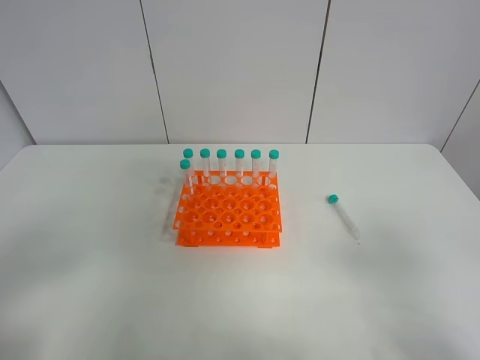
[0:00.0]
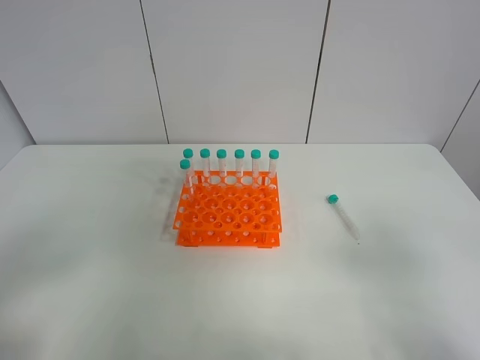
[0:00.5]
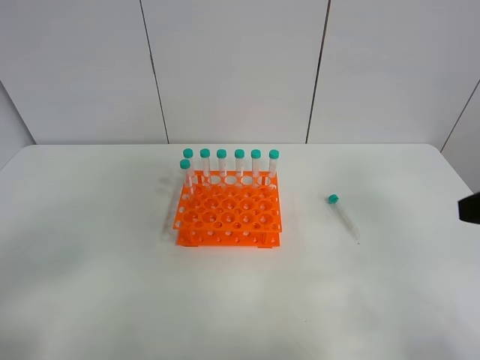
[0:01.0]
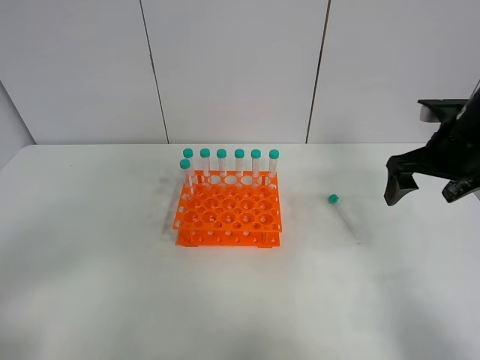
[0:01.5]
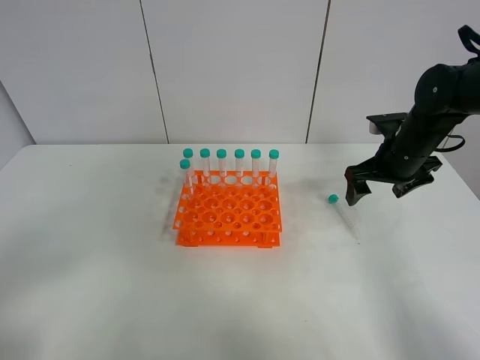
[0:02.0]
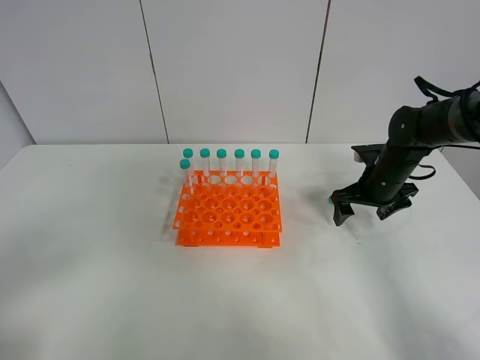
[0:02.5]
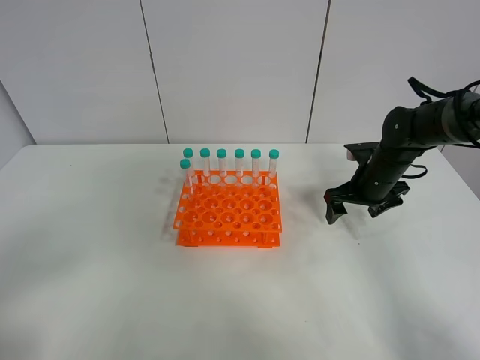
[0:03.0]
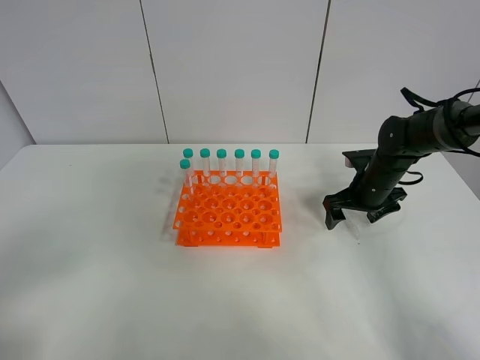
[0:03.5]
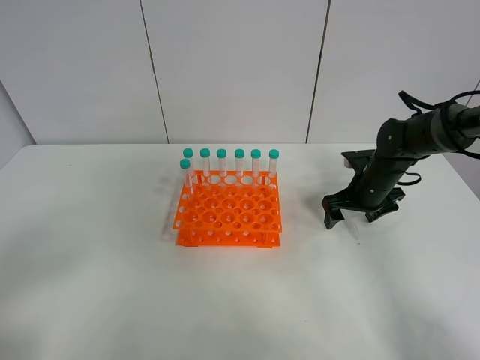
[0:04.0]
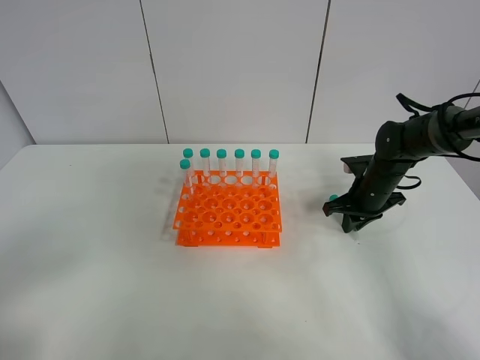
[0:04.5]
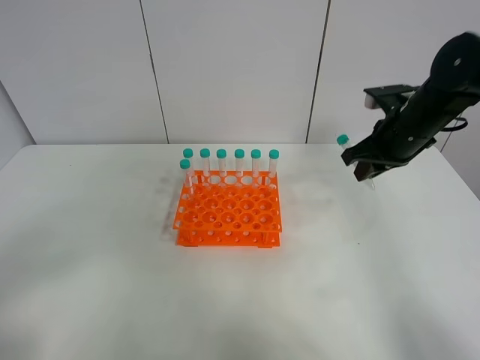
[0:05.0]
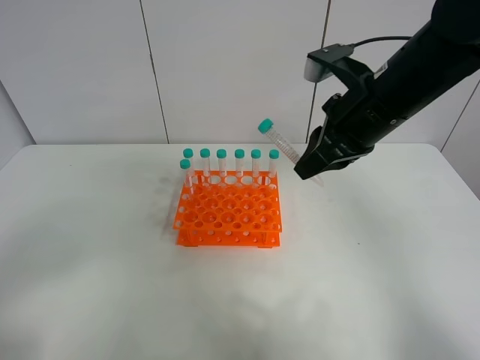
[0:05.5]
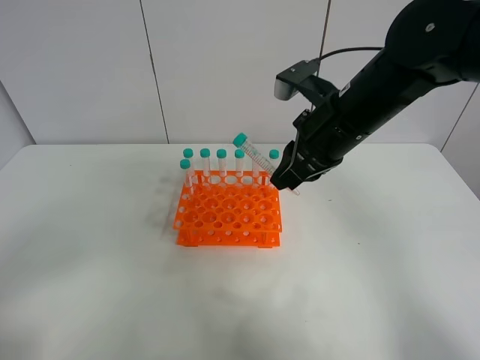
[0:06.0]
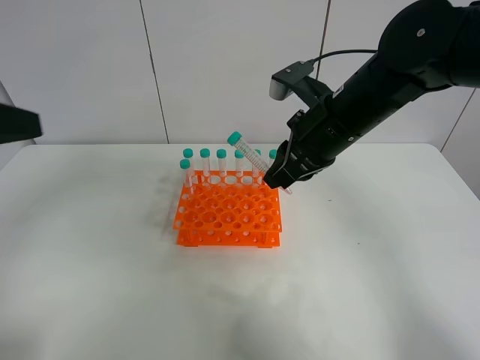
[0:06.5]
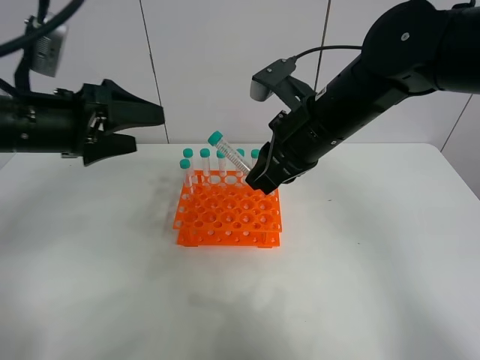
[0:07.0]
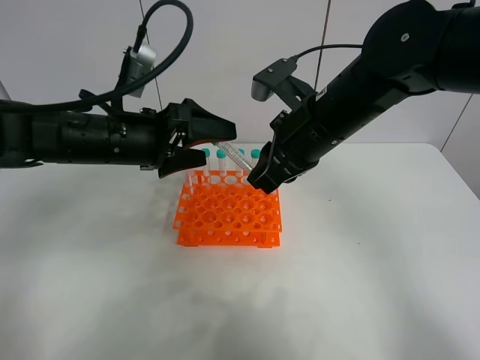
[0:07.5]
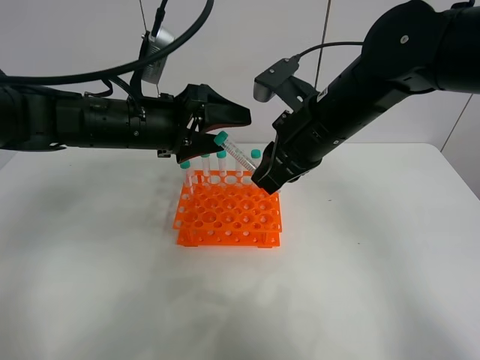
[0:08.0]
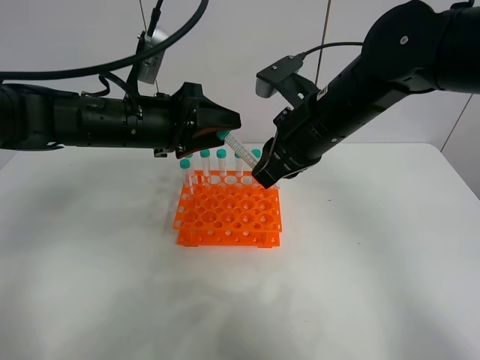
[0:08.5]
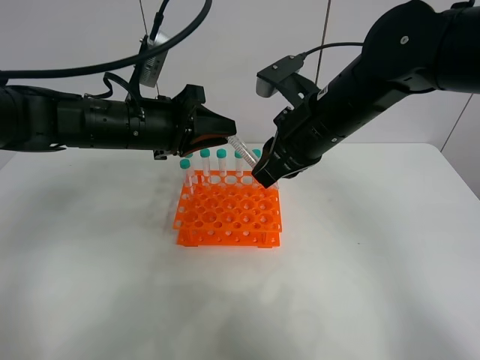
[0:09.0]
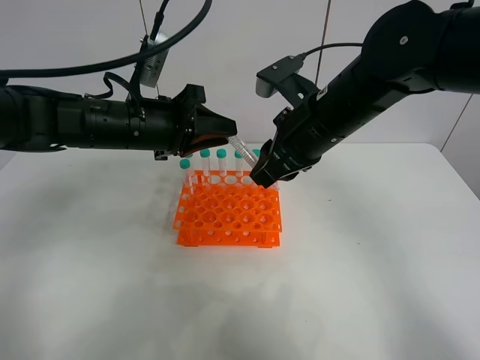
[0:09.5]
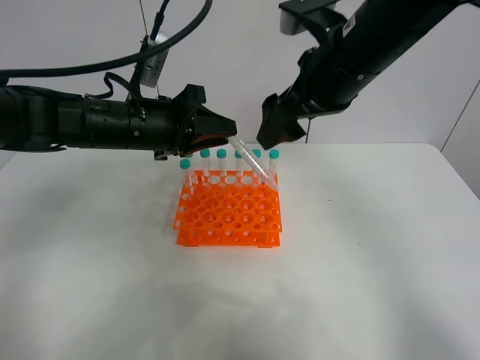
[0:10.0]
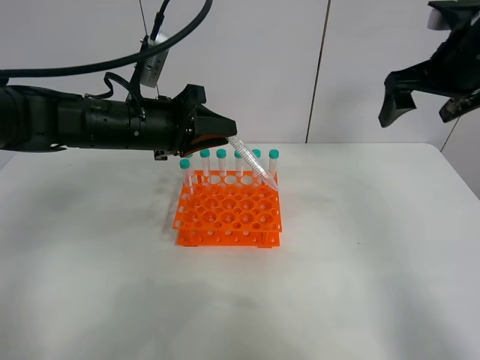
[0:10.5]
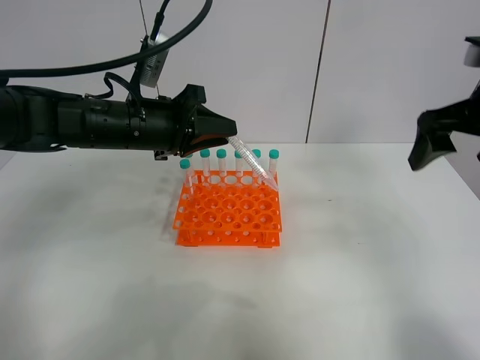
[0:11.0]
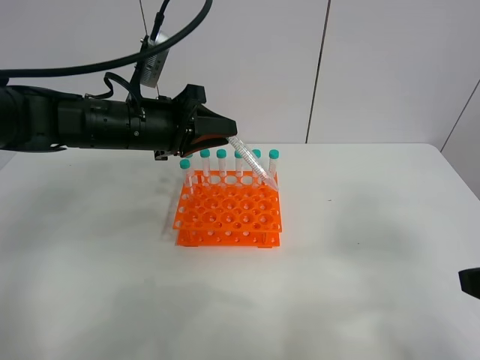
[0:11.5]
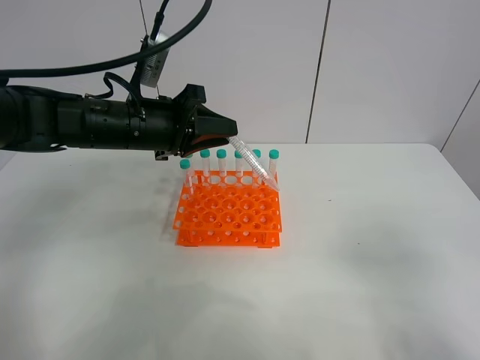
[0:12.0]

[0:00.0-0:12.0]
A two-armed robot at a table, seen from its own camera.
Task of the whole recording: Put the test tube on the table back onto the test tube rack.
Step, 0:00.0 to 0:05.0: Pick up the test tube with the right gripper.
Step, 0:05.5 to 0:10.0: Move the test tube from the right gripper to the left gripper.
0:00.0 to 0:02.0: The right gripper travels forward by about 35 cm.
0:02.0 to 0:04.0: The right gripper is displaced downward by approximately 10 cm.
0:04.0 to 0:06.0: The right gripper goes about 25 cm upward, to the left and backward, and closes up.
0:06.0 to 0:08.0: The left gripper goes about 35 cm forward and to the right.
0:08.0 to 0:10.0: The left gripper closes up. The right gripper shifts some 5 cm upward, and opens.
0:10.0 to 0:12.0: The right gripper moves backward and to the right, about 35 cm.

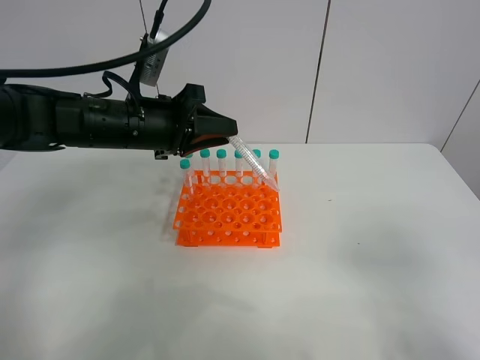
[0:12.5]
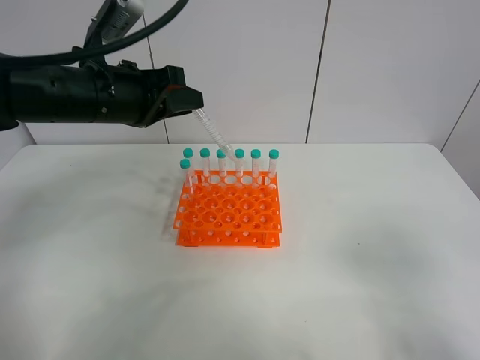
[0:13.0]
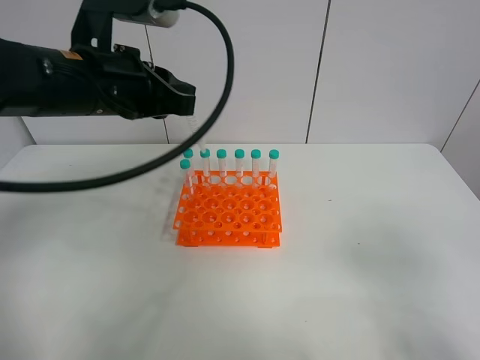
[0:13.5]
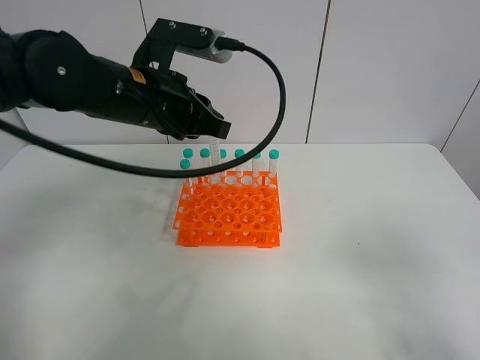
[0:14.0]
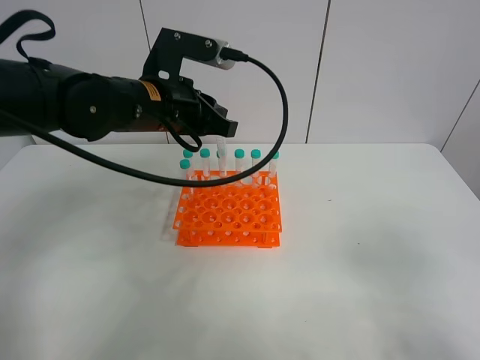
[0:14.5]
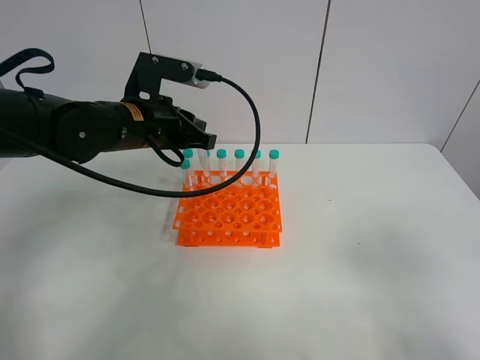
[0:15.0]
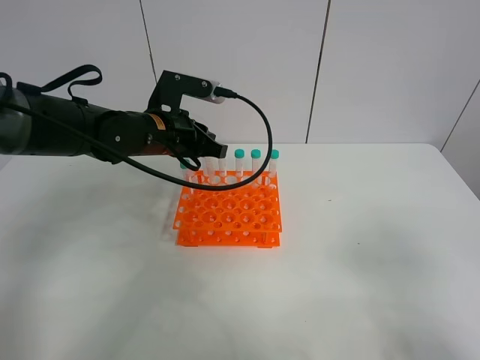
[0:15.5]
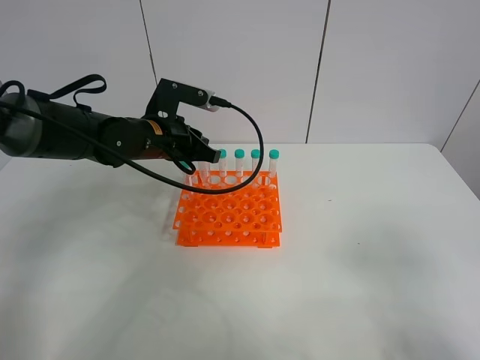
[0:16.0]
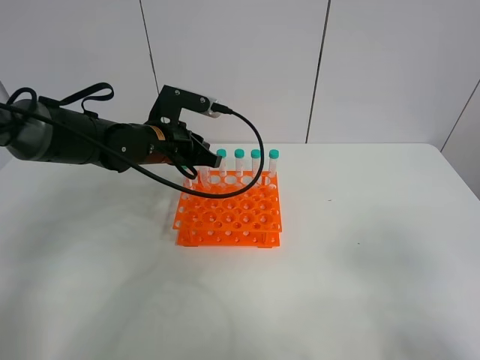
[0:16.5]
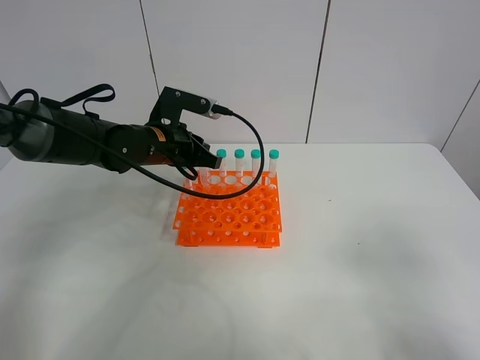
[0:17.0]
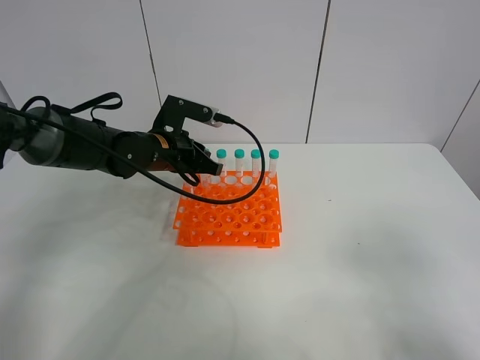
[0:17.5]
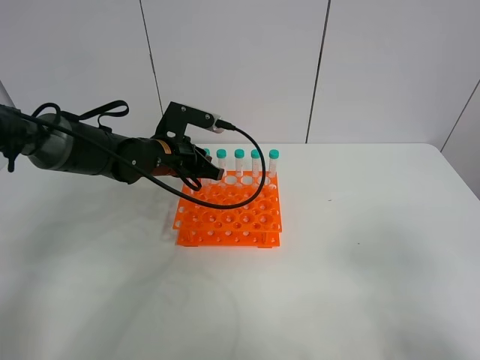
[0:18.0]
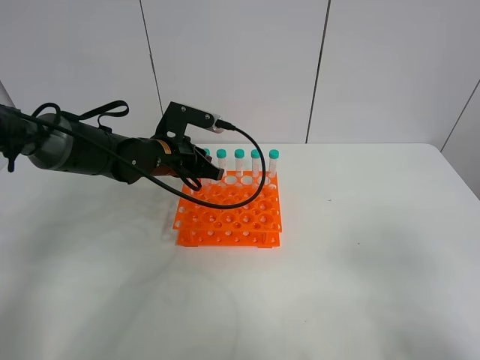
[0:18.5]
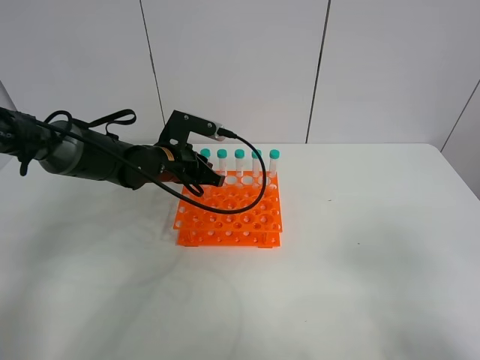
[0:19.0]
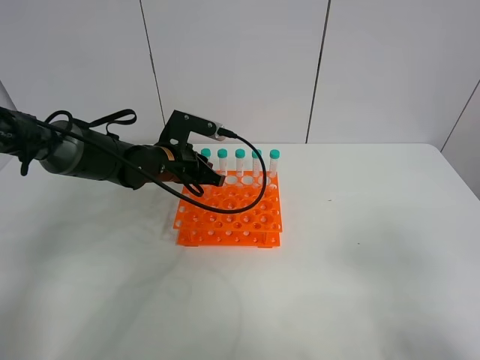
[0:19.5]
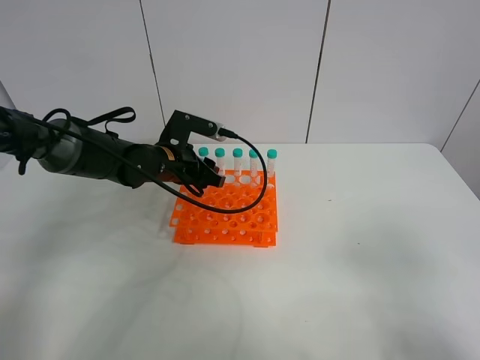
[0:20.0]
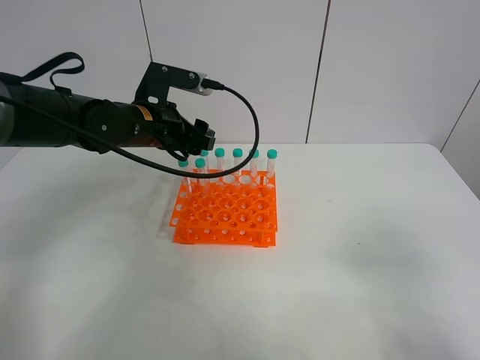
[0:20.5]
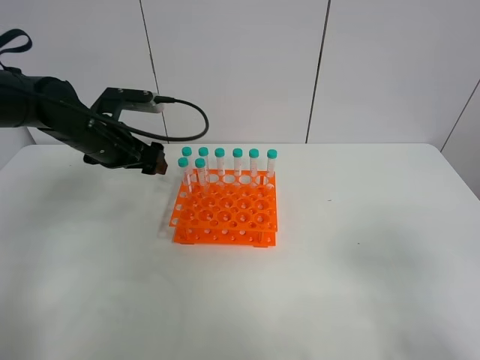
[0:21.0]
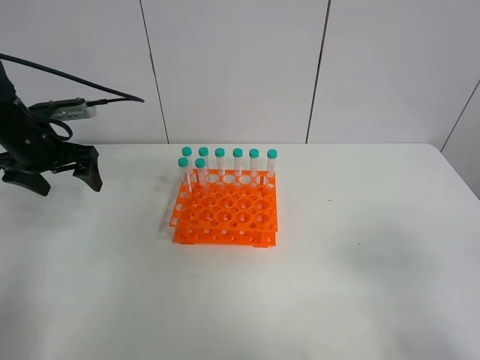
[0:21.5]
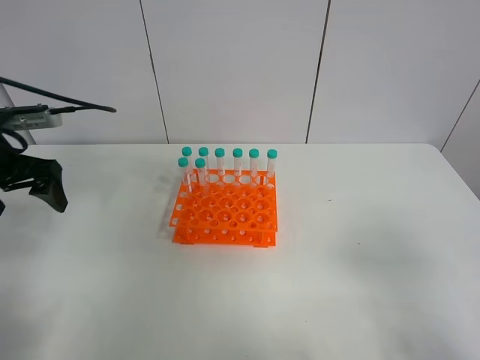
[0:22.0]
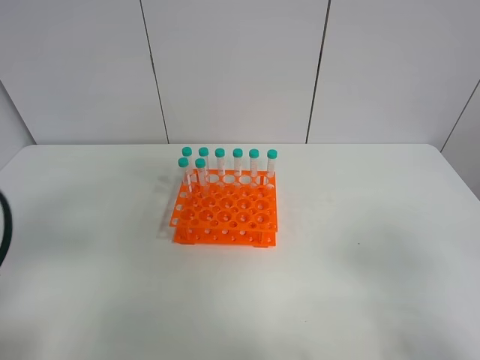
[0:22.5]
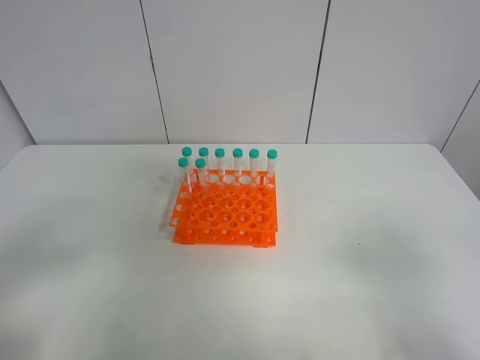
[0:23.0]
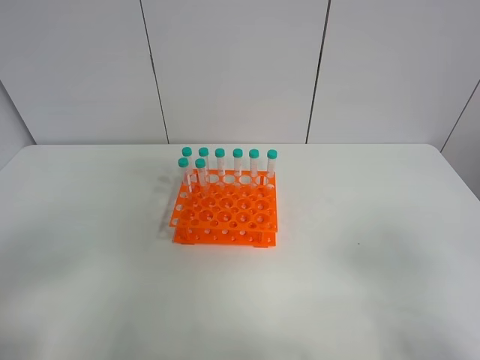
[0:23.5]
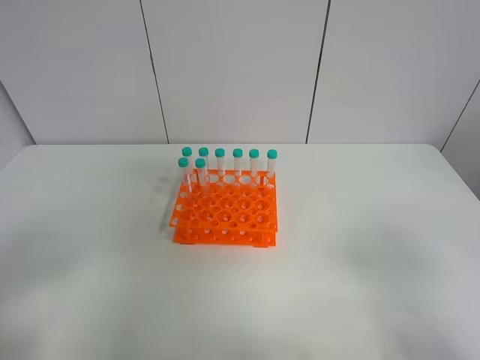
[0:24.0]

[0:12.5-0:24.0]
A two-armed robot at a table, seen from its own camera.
Task of the whole recording: Put the test tube on the table back onto the test tube rack.
Step, 0:12.5 to 0:21.0: Place the test tube on the test tube rack with the left gripper.
0:14.5 to 0:16.5: The left gripper is displaced downward by about 10 cm.
0:16.5 to 0:18.5: The grippers stay close to where they were, moving slightly.
0:18.5 to 0:20.0: The left gripper opens its fingers.
0:20.0 to 0:22.0: The left gripper moves to the left, upward and backward, roughly 25 cm, and opens.
0:22.0 to 0:24.0: The left gripper moves backward, some 30 cm.
